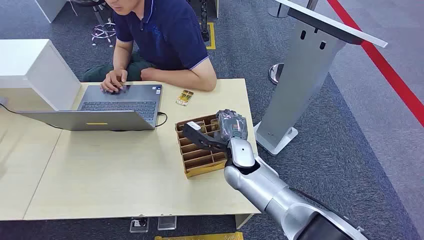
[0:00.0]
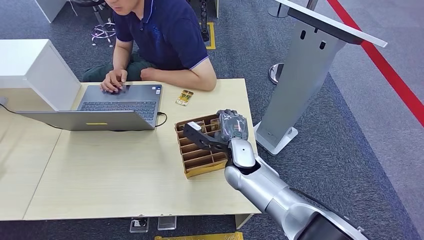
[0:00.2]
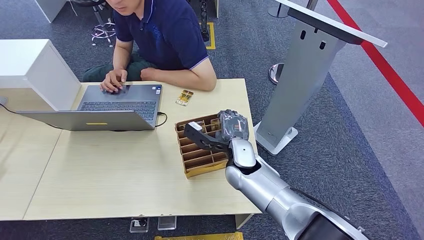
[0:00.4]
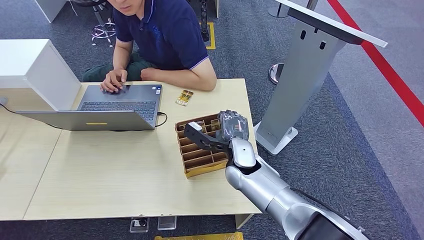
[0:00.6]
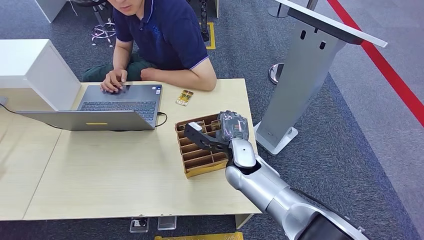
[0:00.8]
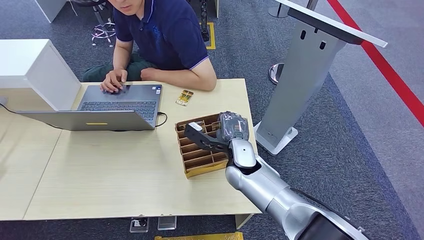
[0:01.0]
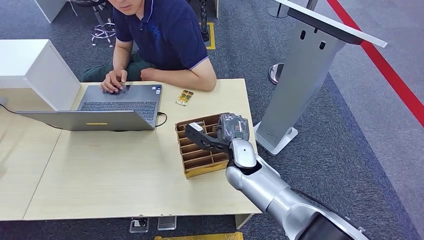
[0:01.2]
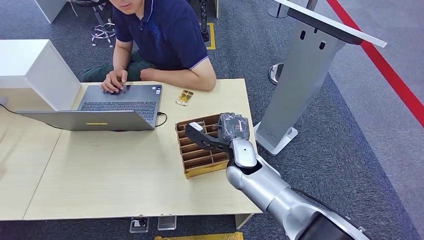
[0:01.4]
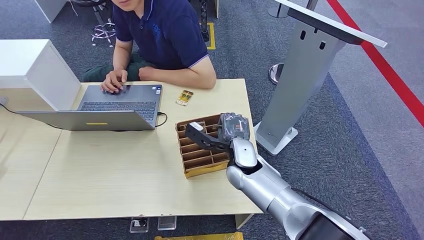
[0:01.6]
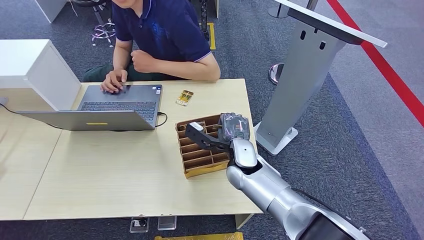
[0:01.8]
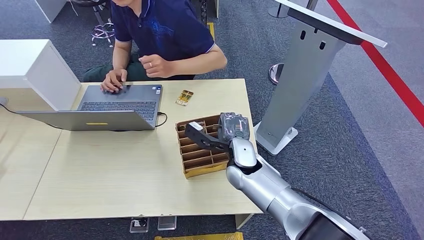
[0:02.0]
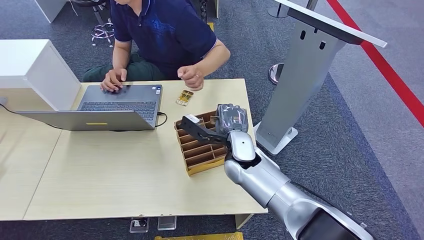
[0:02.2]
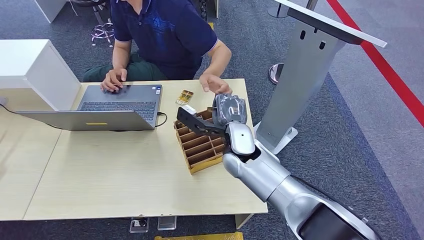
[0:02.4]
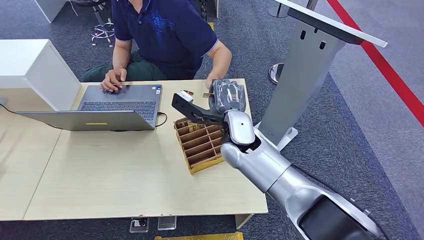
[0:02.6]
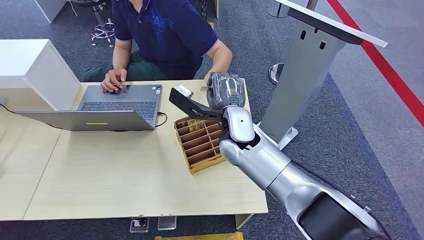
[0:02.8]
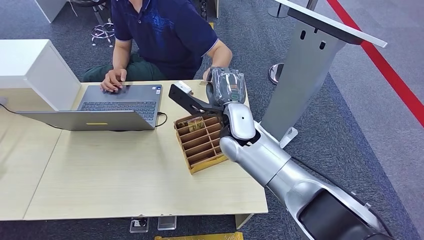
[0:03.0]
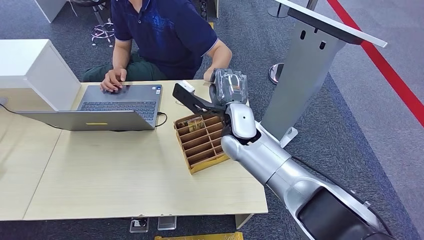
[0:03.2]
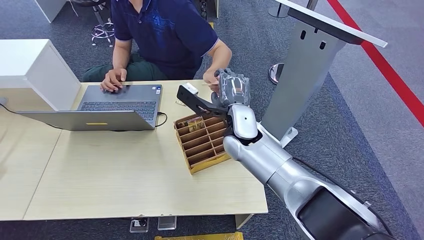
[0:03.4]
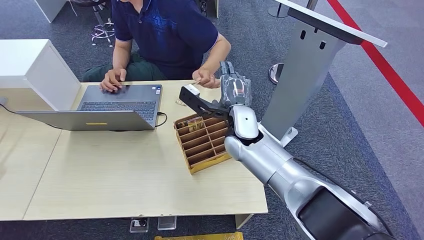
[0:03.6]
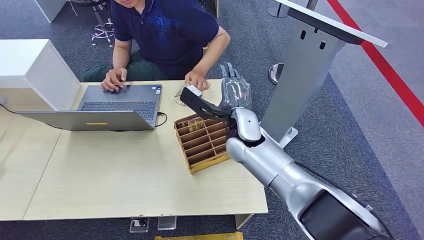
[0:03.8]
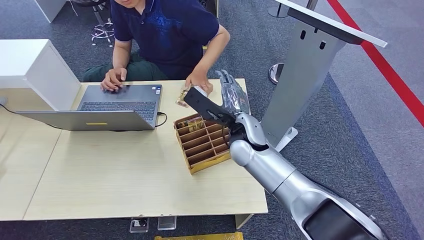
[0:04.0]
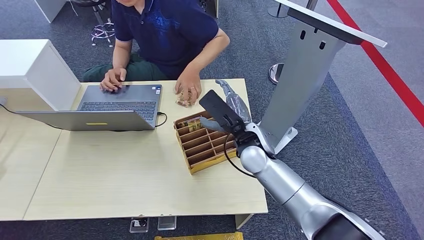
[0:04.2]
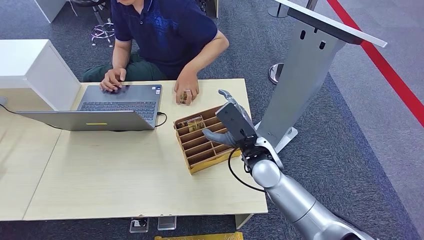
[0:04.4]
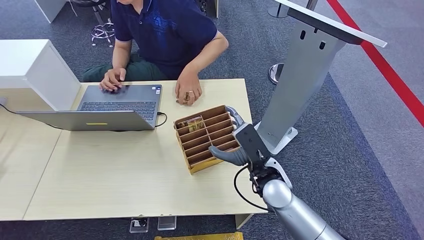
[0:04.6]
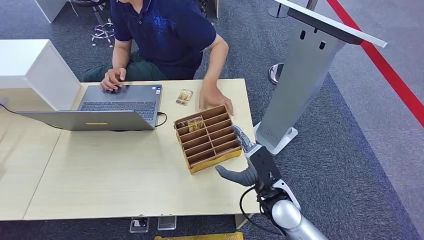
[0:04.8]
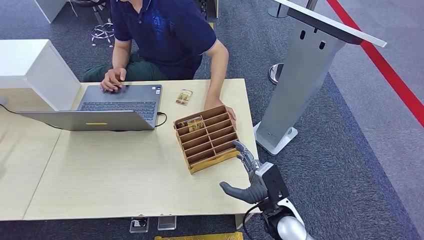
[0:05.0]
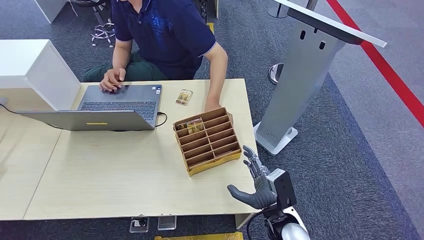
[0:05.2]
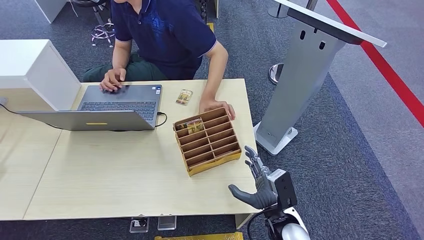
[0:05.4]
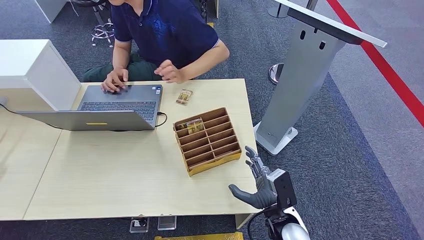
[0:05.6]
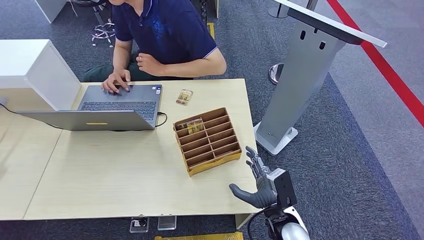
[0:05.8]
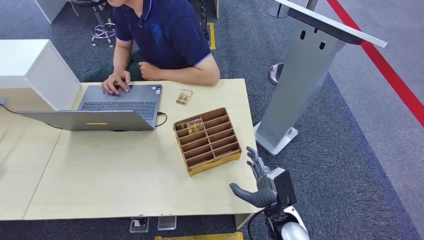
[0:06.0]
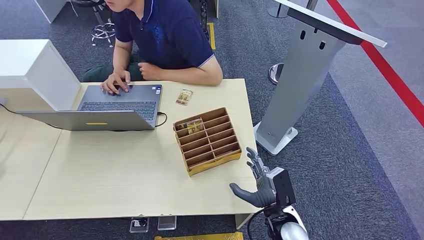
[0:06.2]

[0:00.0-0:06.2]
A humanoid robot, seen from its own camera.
Step, 0:00.0 to 0:02.4: Pick up the room card from the card holder.
Step, 0:02.6 to 0:06.0: Hand the room card to the target.
0:01.6 to 0:03.2: The right hand moves upward, roughly 10 cm.
0:03.2 to 0:04.6: The right hand is displaced backward, downward and to the right by approximately 15 cm.
0:04.6 to 0:06.2: The right hand is displaced backward and downward by roughly 15 cm.

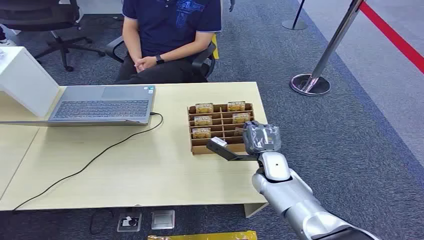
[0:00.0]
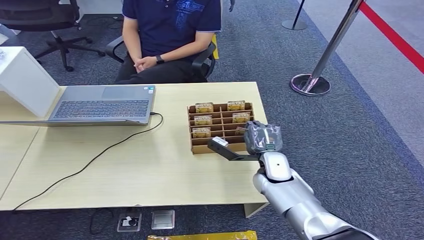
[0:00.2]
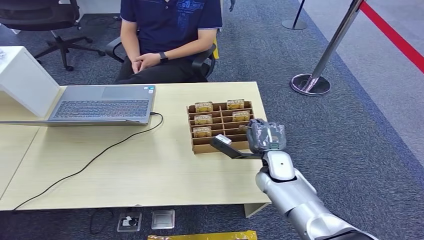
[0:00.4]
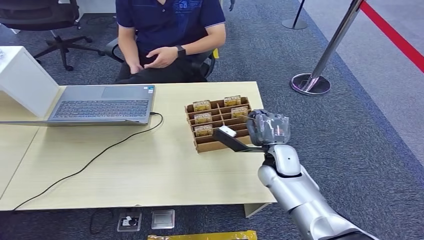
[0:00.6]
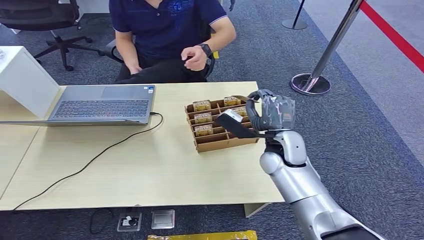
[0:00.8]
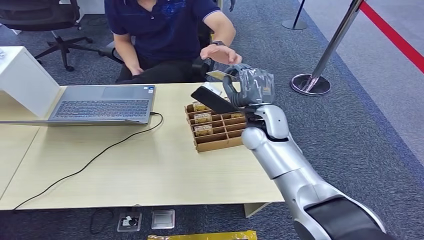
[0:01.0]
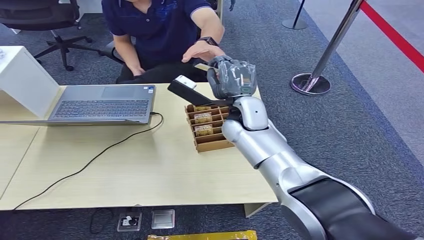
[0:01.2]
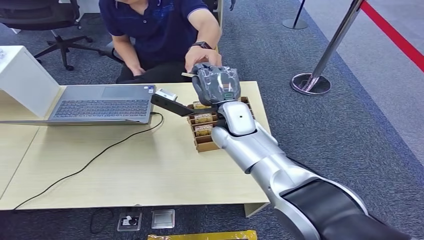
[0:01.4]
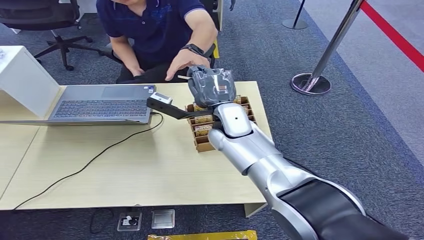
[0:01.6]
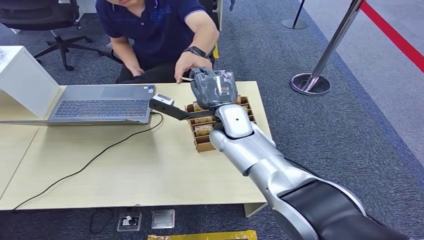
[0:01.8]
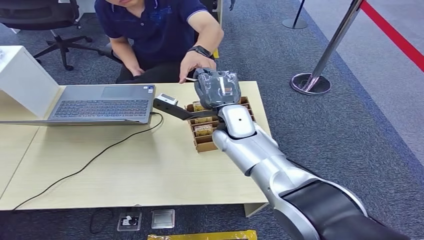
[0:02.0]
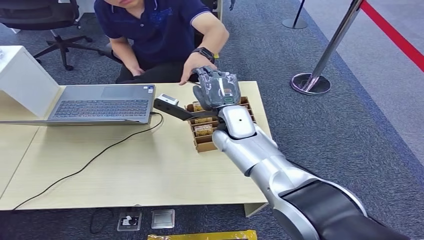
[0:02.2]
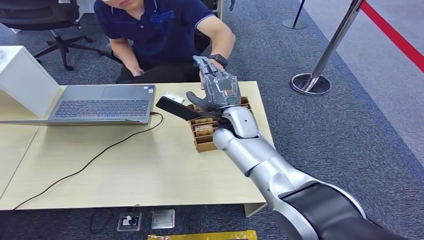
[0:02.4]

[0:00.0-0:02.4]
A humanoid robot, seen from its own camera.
Step, 0:00.0 to 0:00.8: Pick up the room card from the card holder.
Step, 0:01.0 to 0:02.4: Hand the room card to the target.
0:01.2 to 0:02.4: The hands move only a little.
